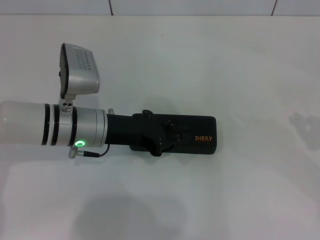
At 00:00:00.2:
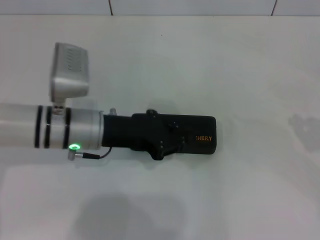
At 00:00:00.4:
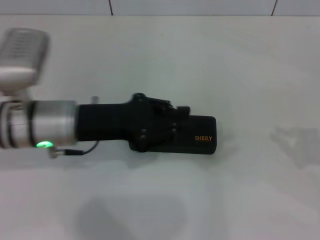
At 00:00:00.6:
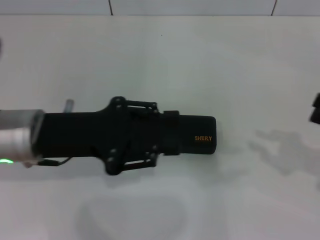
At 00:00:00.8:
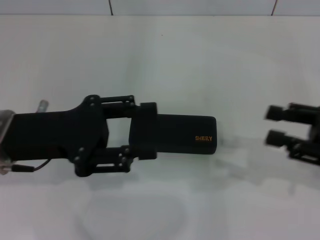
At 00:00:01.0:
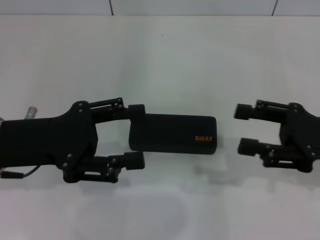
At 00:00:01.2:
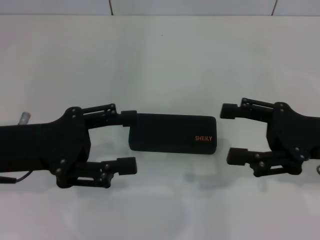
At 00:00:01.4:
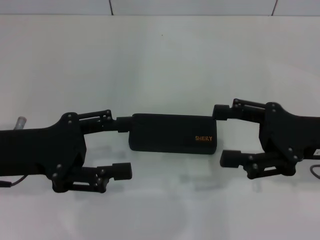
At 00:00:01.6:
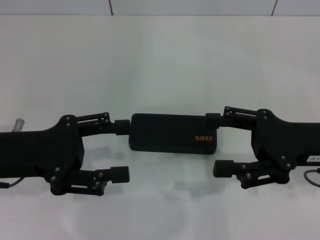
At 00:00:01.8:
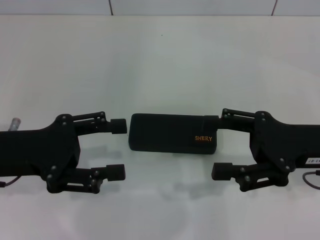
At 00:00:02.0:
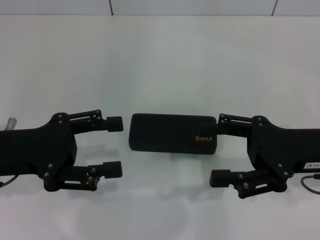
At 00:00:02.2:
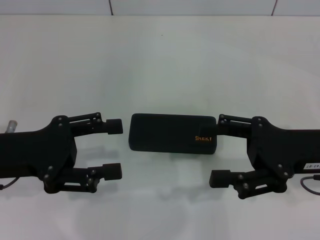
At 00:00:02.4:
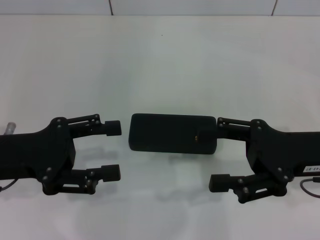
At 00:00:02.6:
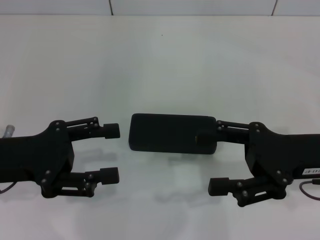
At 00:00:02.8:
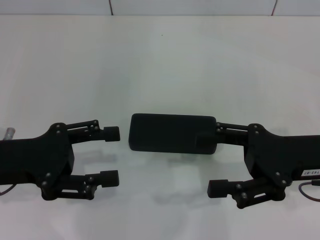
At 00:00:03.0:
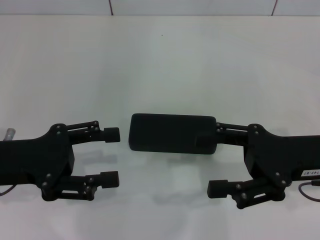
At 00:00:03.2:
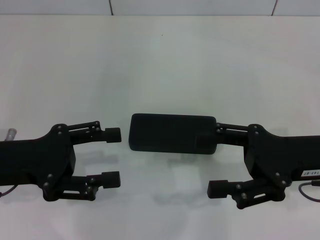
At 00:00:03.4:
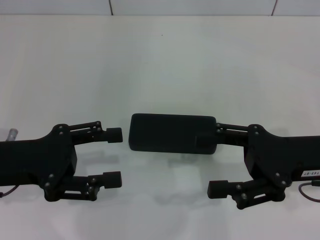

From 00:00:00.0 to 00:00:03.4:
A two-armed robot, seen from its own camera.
From 00:00:00.0 to 00:00:01.6: The right gripper goes about 15 cm to the left, and opens up. The left gripper goes some 15 cm to the left, backward and upward, and opens up.
From 00:00:01.6 to 00:00:03.4: The grippers make only small movements.
